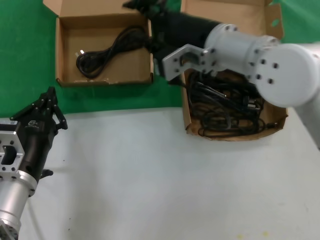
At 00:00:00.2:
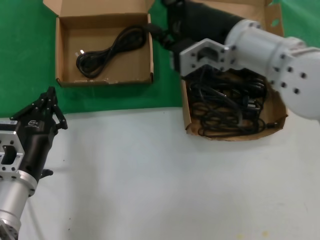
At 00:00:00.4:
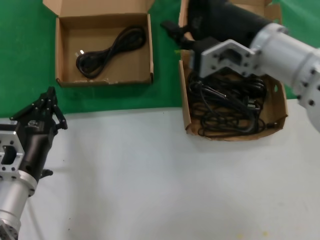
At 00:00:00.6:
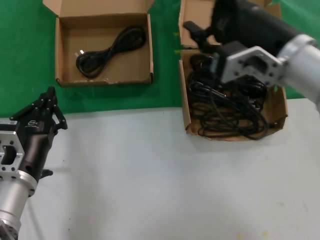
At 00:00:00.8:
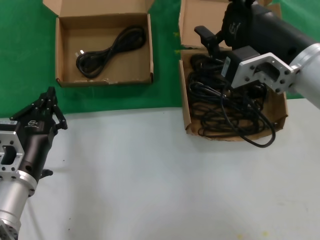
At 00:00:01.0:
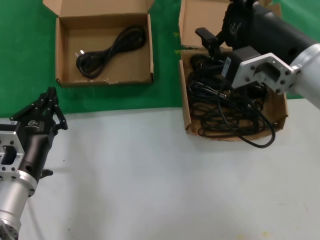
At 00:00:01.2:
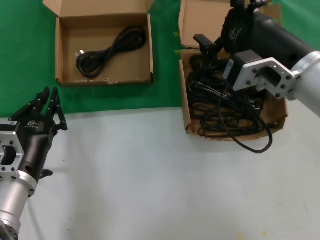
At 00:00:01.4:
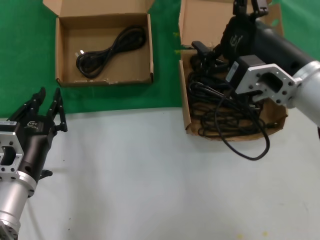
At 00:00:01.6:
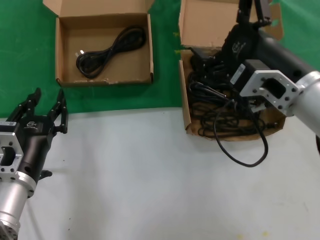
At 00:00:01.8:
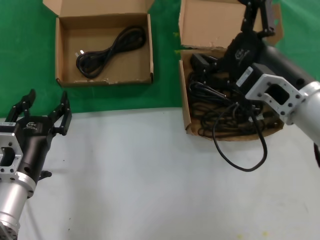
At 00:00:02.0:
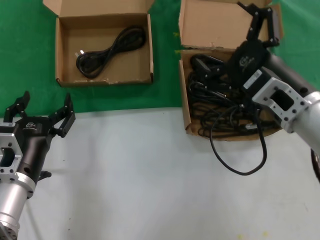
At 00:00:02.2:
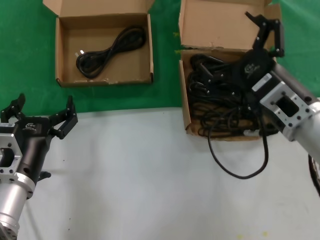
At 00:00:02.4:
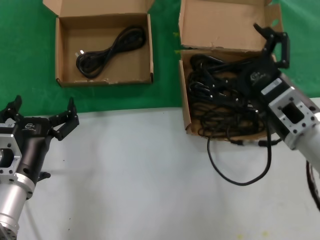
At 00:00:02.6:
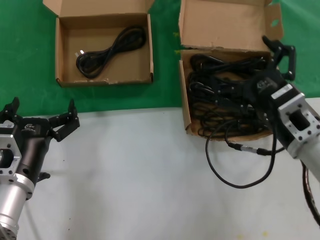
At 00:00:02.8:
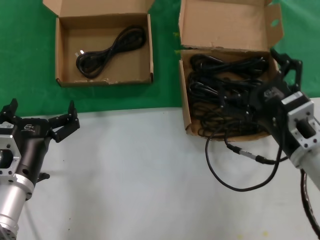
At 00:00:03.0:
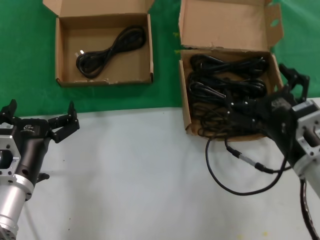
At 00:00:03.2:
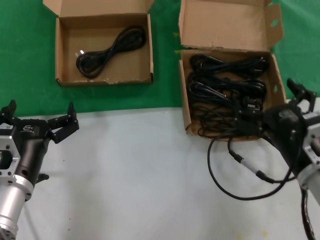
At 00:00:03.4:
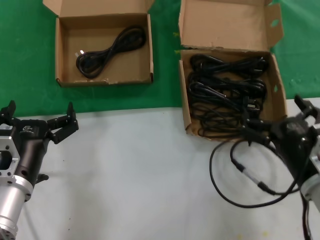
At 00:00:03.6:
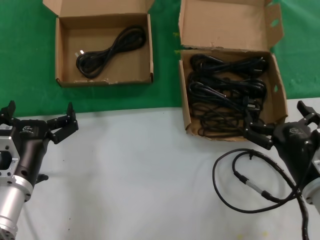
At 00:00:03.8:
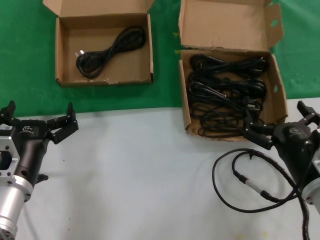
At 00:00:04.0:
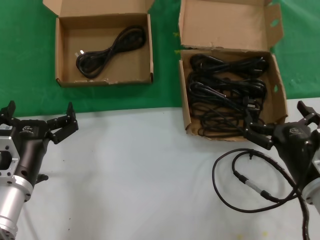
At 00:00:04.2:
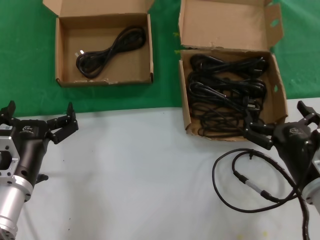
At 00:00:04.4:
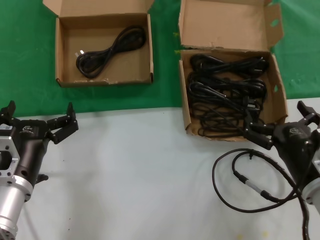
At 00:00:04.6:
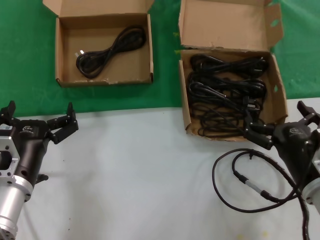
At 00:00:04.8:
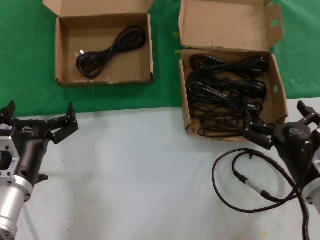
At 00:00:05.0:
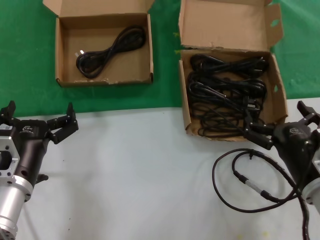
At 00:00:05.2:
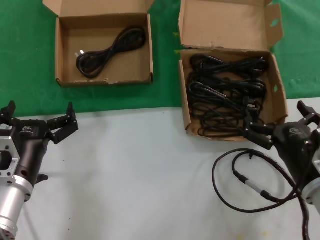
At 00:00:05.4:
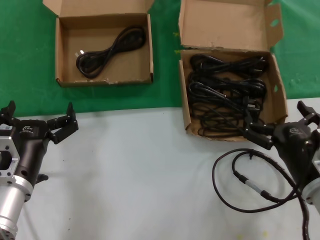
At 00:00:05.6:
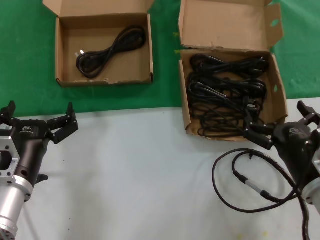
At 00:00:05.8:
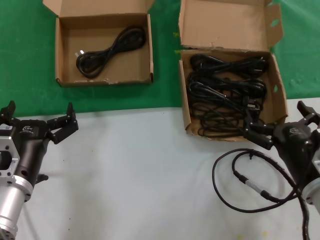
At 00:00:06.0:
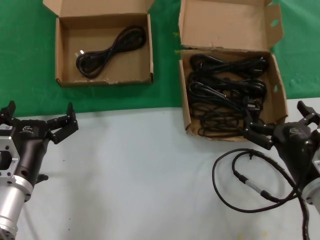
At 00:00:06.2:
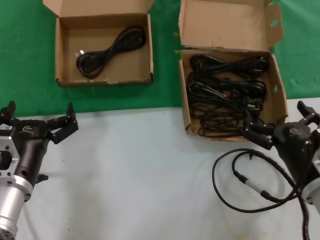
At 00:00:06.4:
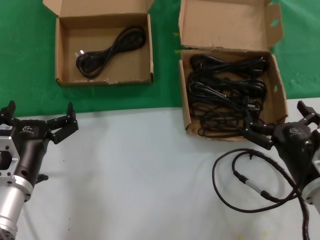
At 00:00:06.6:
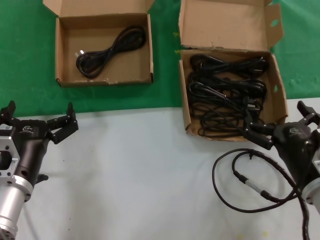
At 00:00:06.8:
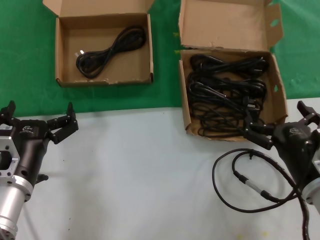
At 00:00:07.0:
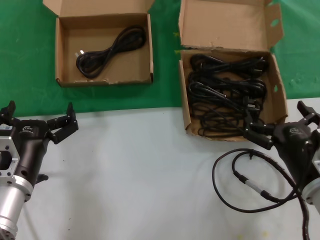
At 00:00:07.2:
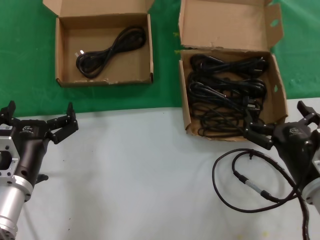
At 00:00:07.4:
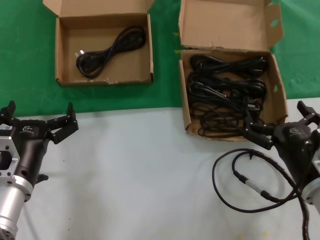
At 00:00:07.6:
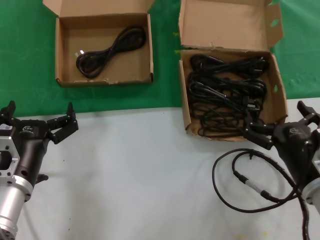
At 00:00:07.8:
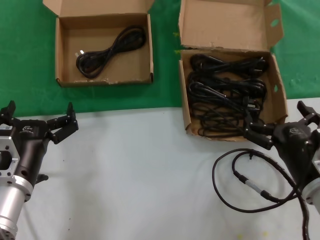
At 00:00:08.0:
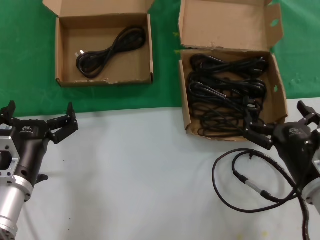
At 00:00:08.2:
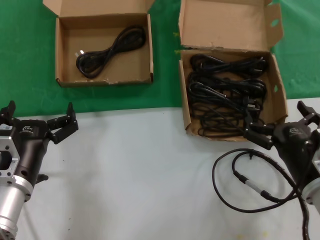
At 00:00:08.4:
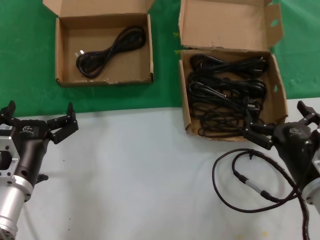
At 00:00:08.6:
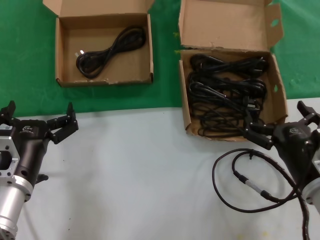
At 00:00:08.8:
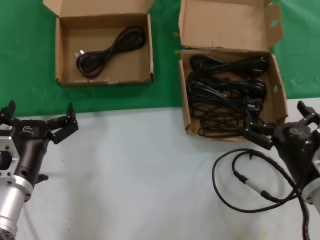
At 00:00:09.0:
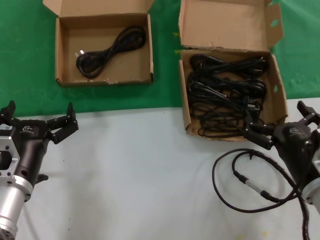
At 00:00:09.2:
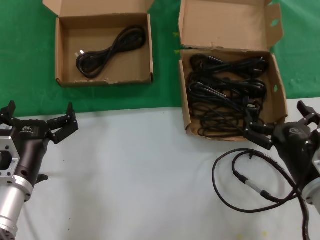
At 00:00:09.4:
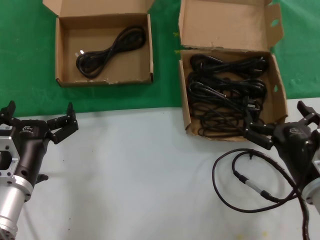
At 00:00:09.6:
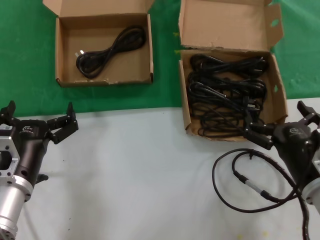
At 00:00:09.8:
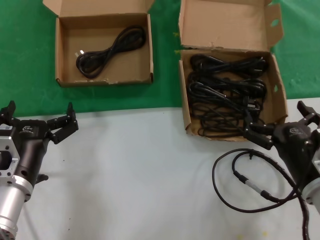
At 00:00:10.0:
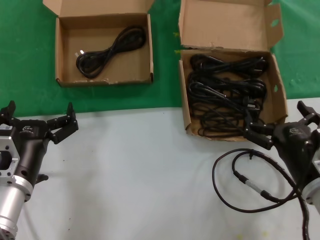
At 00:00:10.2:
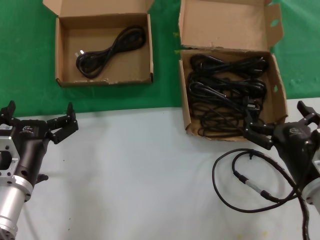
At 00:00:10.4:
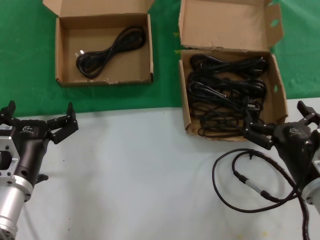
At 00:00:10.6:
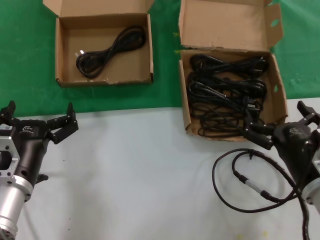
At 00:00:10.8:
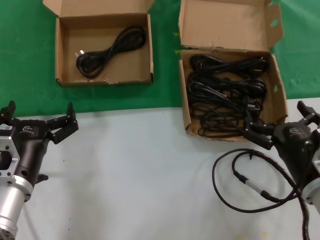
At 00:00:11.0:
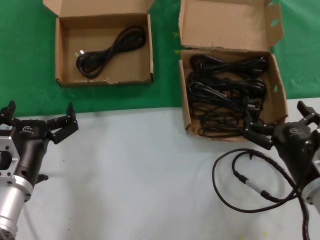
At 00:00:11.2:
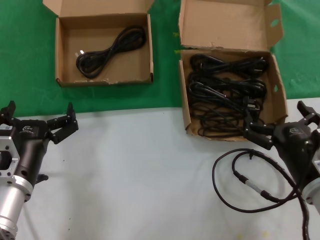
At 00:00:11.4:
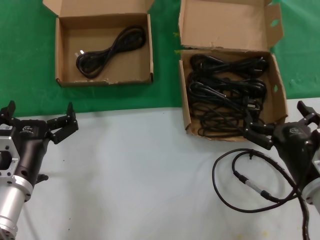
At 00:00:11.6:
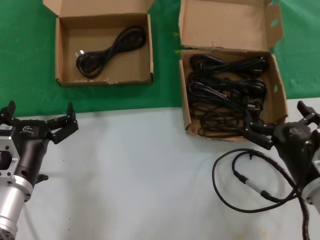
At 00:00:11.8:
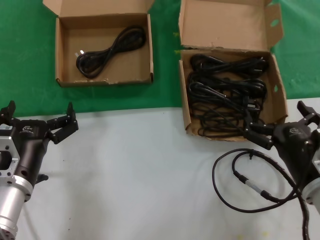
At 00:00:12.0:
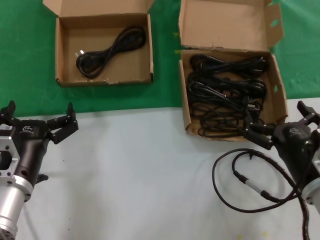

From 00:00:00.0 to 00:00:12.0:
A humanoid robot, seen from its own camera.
Task of the whole recording: take the parts from the box containing them and put them into an empty box.
From 00:00:00.0 to 00:00:01.6: The right hand travels backward and to the right by some 15 cm.
From 00:00:01.6 to 00:00:03.0: The right hand travels downward by about 10 cm.
From 00:00:03.0 to 00:00:04.4: The right hand shifts by roughly 5 cm.
From 00:00:04.4 to 00:00:12.0: Neither hand changes place.
